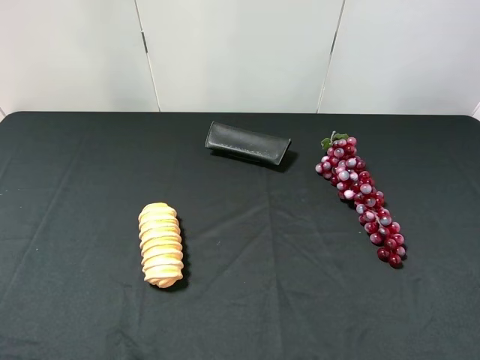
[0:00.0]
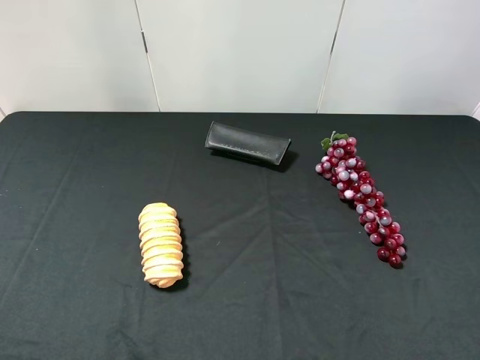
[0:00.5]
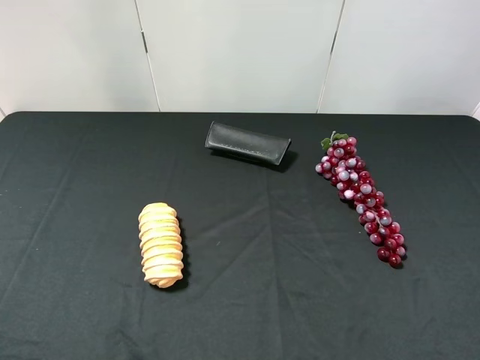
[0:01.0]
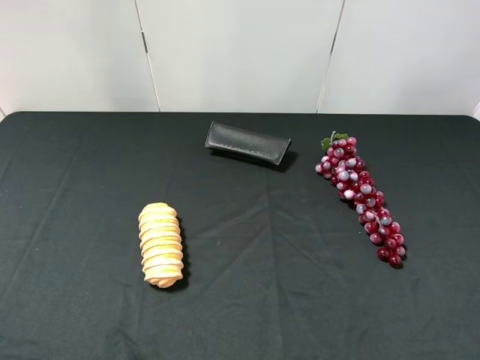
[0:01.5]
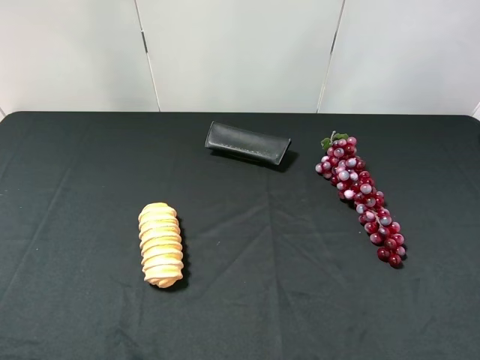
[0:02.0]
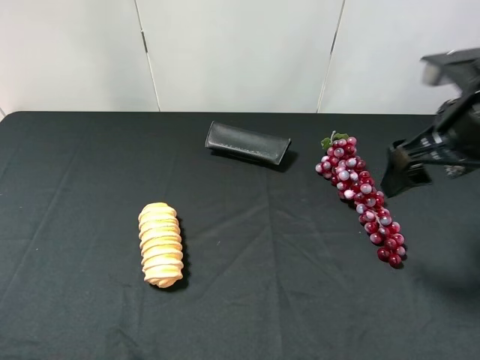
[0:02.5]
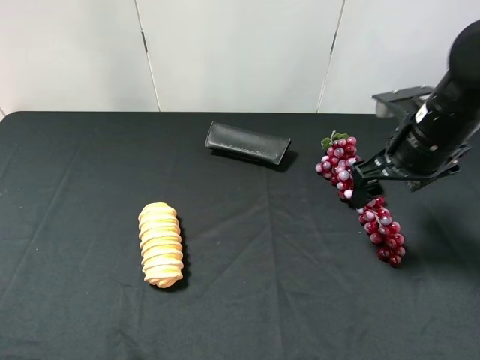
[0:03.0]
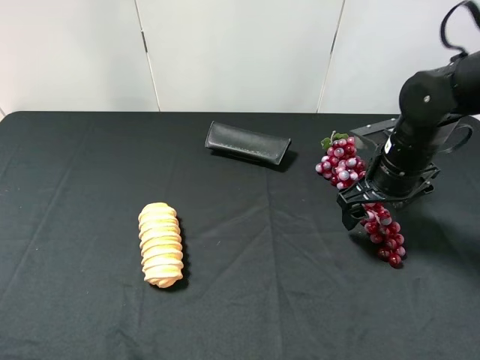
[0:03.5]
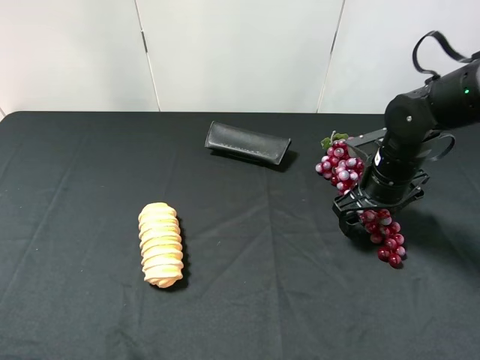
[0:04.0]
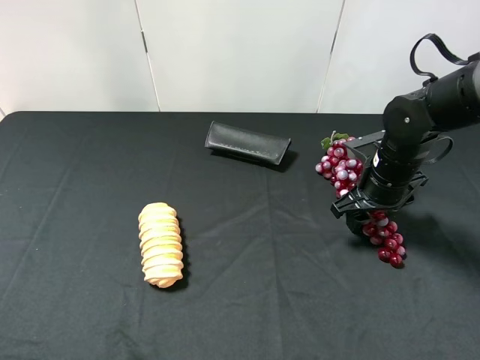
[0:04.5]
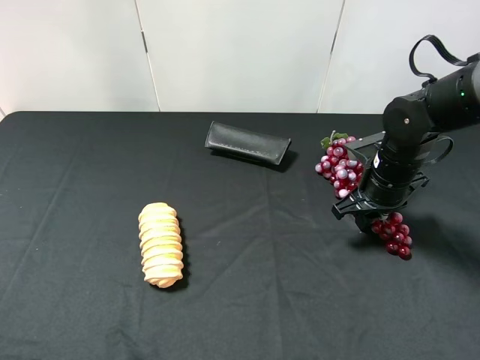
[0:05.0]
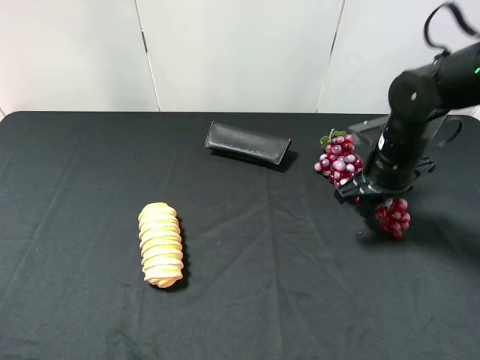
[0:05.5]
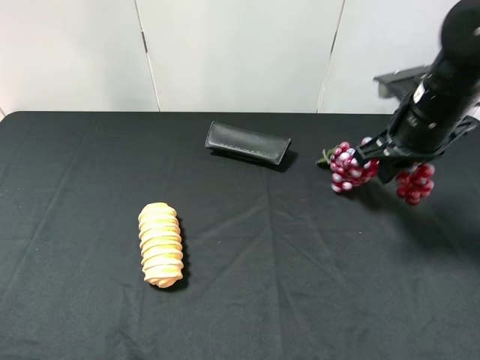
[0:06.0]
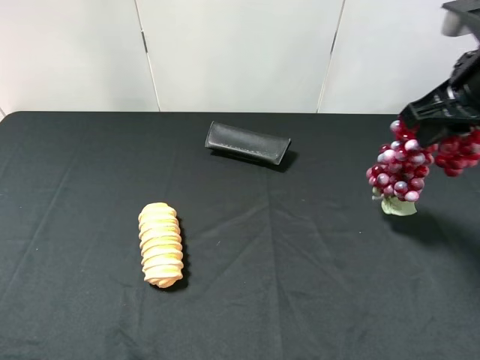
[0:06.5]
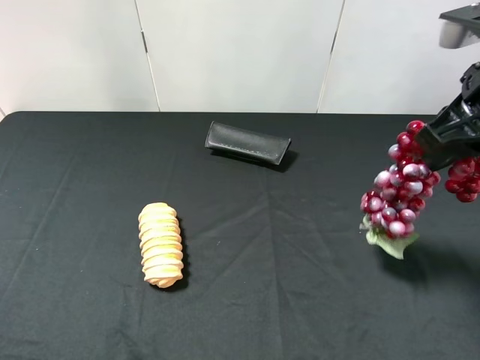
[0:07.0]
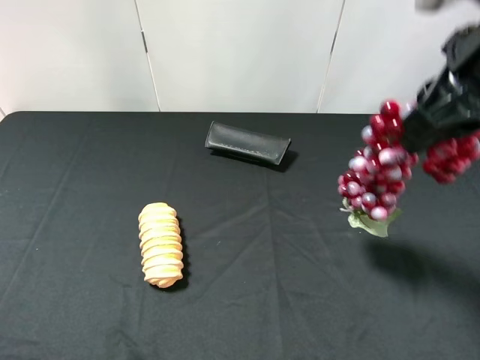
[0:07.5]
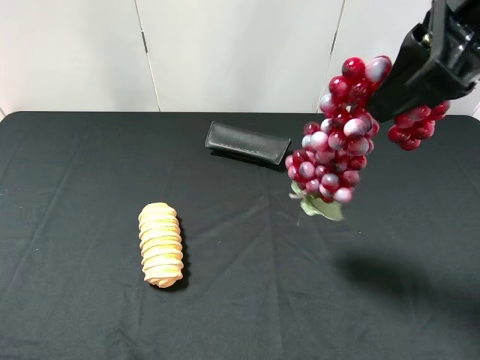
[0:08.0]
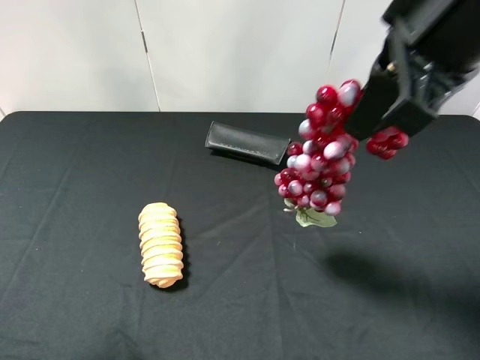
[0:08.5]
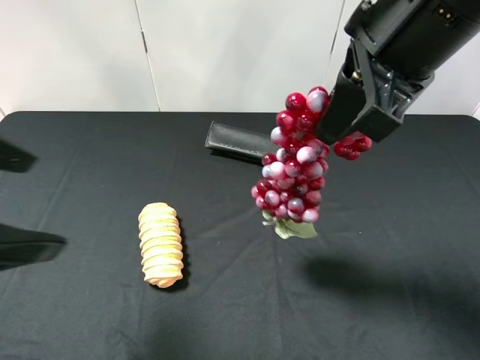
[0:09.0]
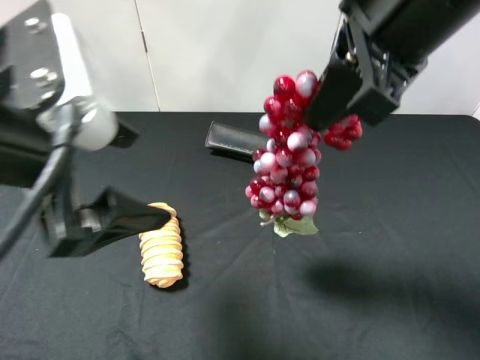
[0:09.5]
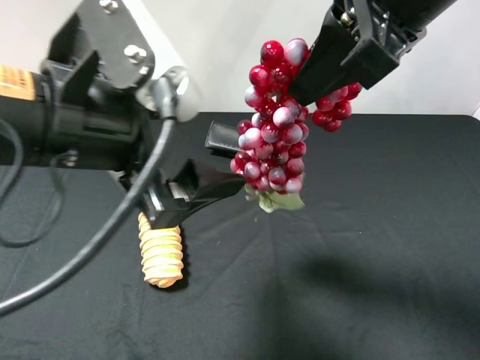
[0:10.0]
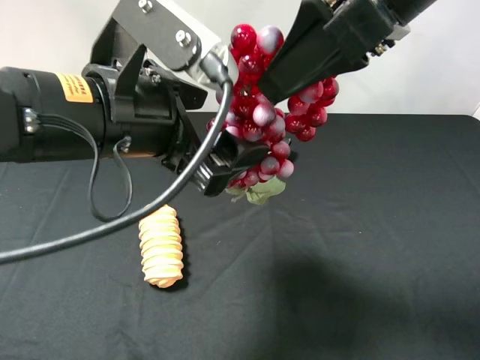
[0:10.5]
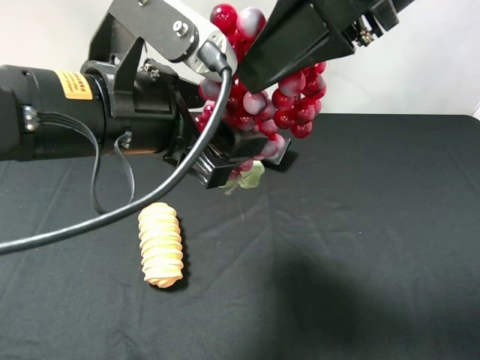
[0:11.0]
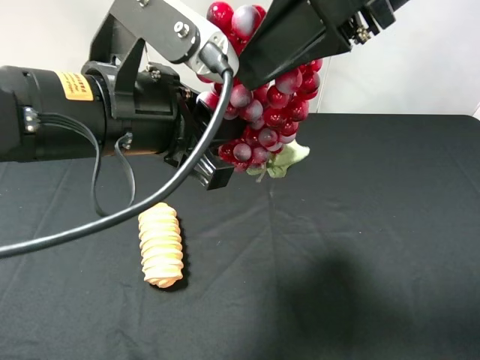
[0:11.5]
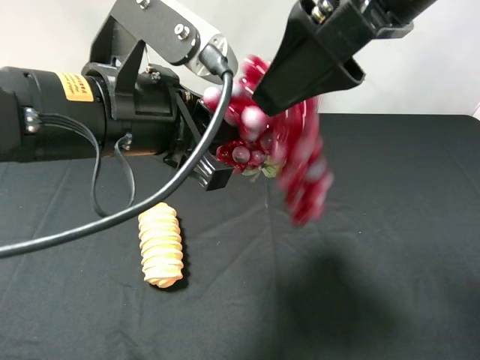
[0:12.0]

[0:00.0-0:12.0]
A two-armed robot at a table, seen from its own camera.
Task of the whole recording: use the right gripper to pick up the item and transfer it from the right gripper to the left gripper.
Step, 0:00.0 to 0:04.5: Use the right gripper to grab the grape on the right side of the table.
0:02.0 to 0:04.0: The right gripper goes about 30 cm downward and forward.
0:04.0 to 0:06.0: The right gripper goes roughly 10 cm upward, and closes.
0:06.0 to 0:08.0: The right gripper goes some 20 cm upward, backward and to the left.
0:08.0 to 0:10.0: The right gripper moves approximately 5 cm, while the left gripper travels to the right and forward by approximately 25 cm.
0:10.0 to 0:12.0: The left gripper closes up, while the right gripper opens.

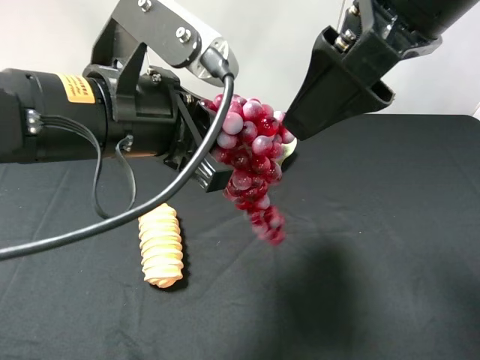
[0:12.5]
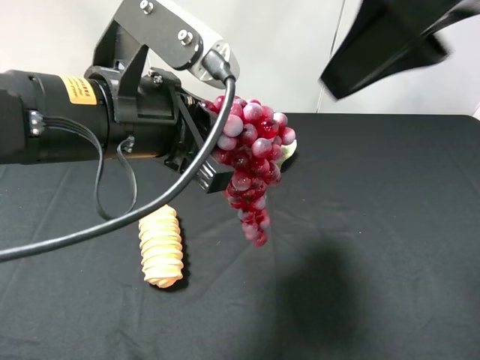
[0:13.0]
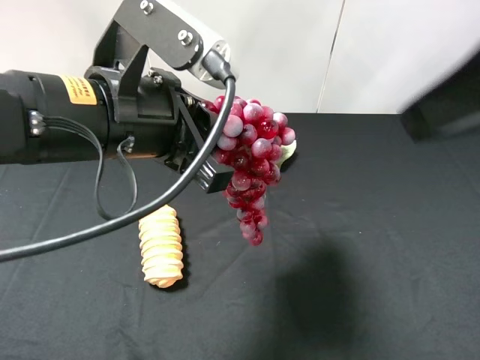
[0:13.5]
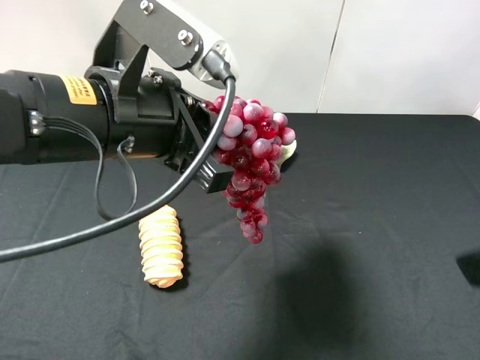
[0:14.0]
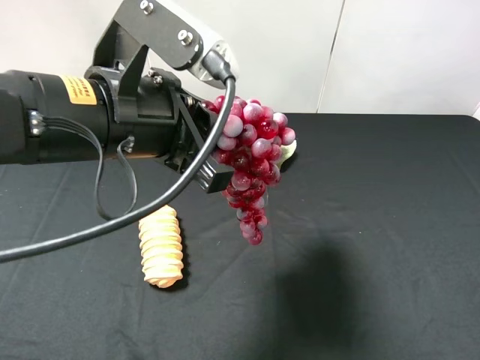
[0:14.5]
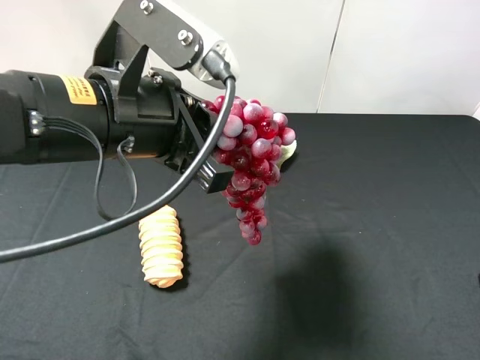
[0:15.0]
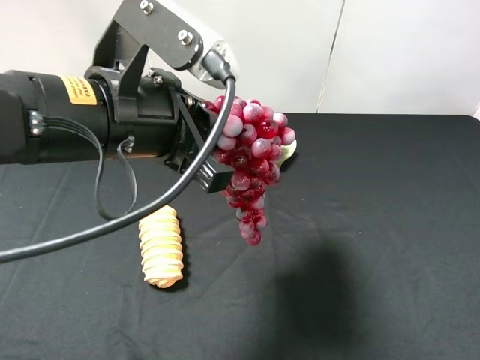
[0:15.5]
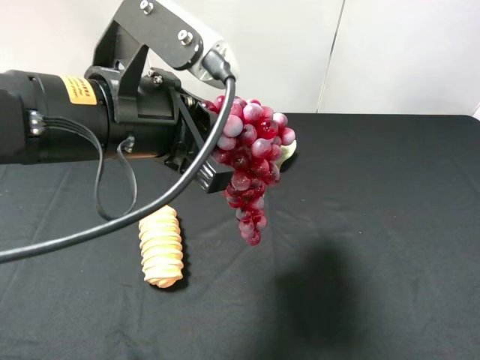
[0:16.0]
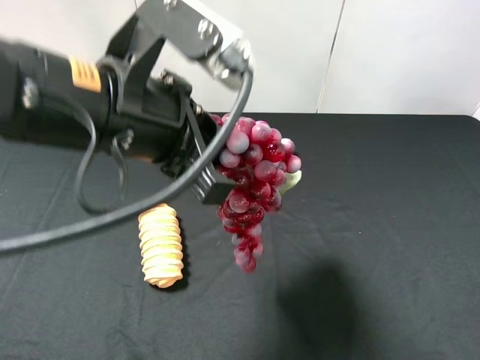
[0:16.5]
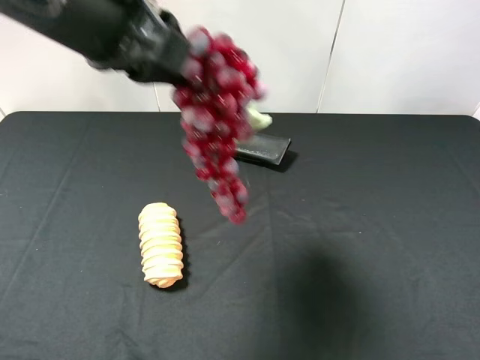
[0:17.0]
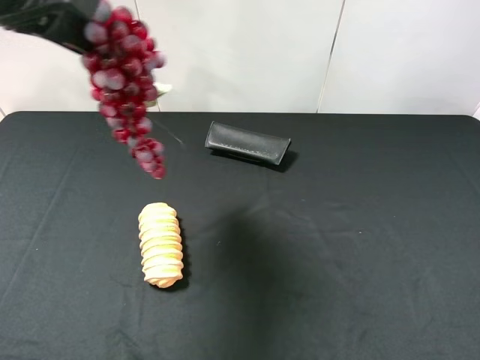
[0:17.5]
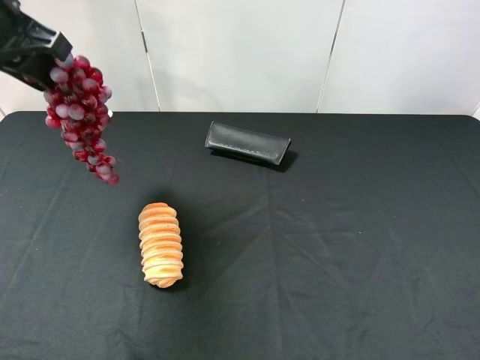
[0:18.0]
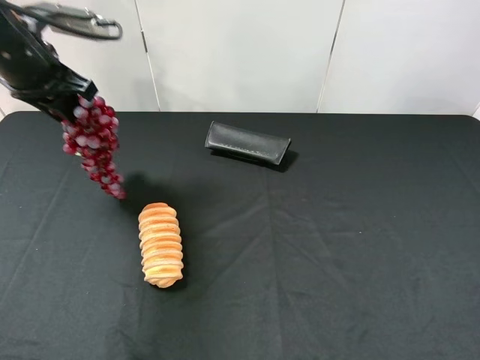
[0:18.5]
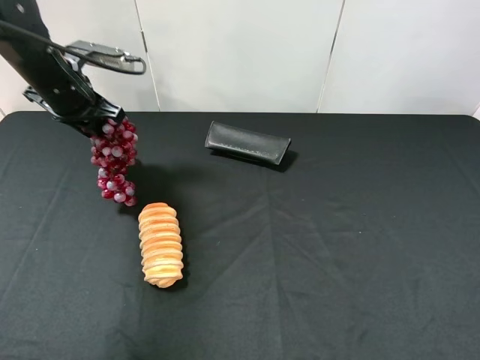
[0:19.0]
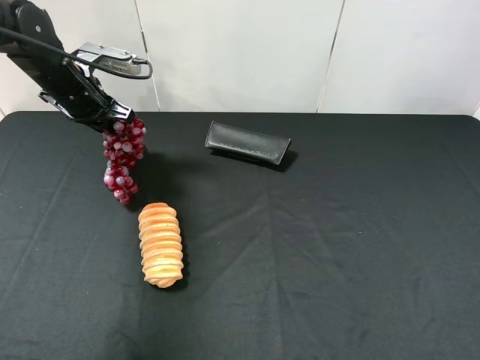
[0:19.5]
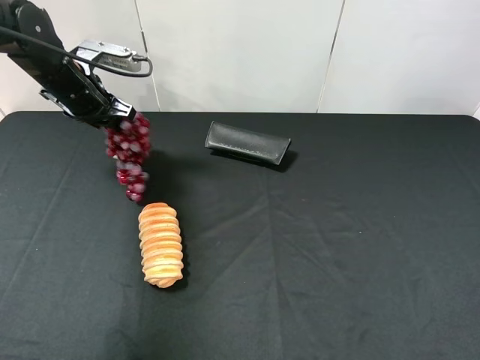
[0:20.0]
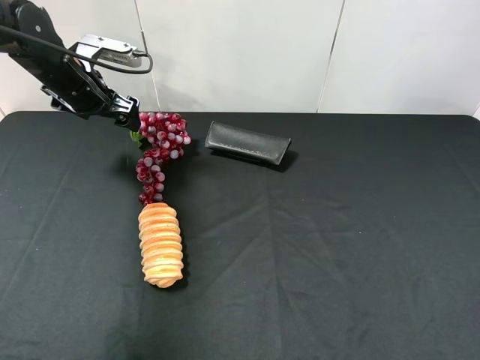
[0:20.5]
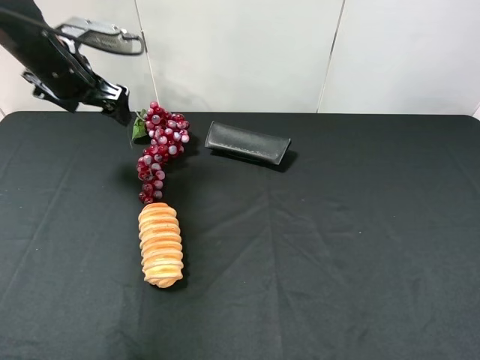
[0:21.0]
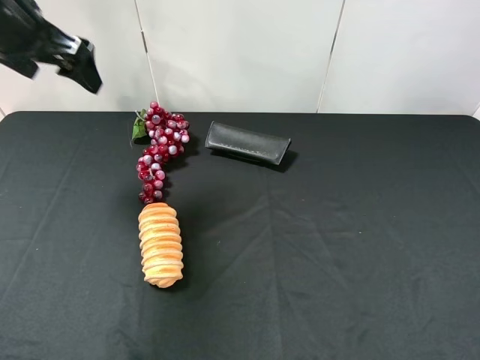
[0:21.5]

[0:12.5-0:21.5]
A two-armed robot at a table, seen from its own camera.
Task of the whole recording: use the right gripper to pick up the item and transfer it from the right gripper to the left gripper.
Step, 0:12.5 to 0:20.0: The left gripper places grape on the left side of the table.
0:12.5 to 0:14.5: The right gripper is displaced to the right, backward and downward by about 25 cm.
0:14.5 to 0:17.0: The left gripper goes about 10 cm upward.
0:17.0 to 0:19.5: The left gripper is displaced forward, downward and to the left by approximately 25 cm.
0:19.5 to 0:21.5: The left gripper moves upward and backward, some 15 cm, and opens up.

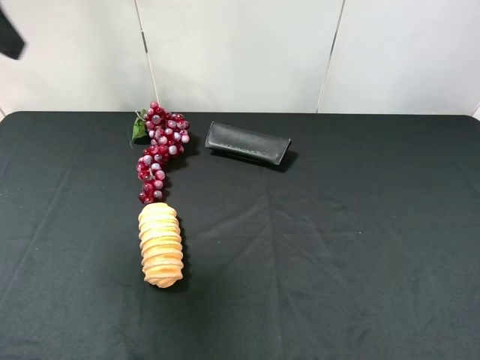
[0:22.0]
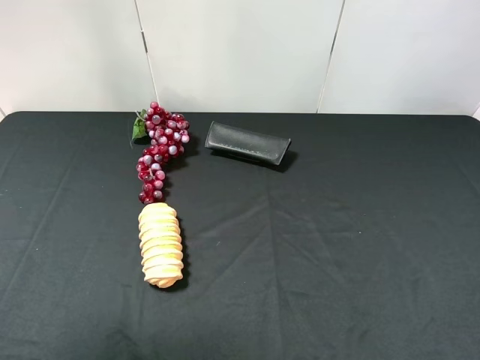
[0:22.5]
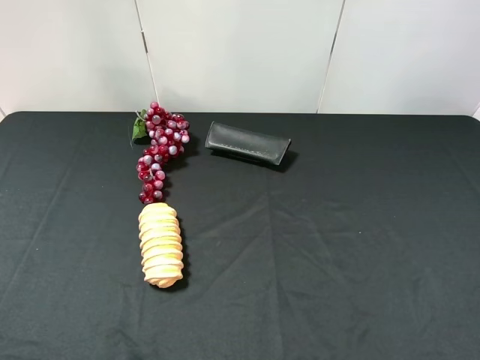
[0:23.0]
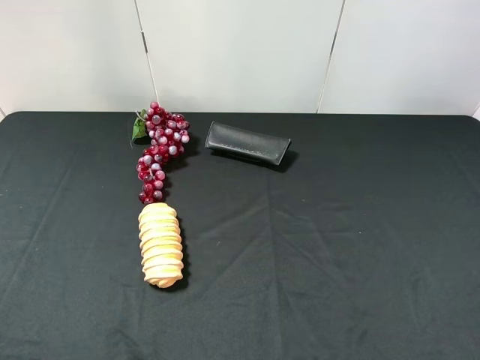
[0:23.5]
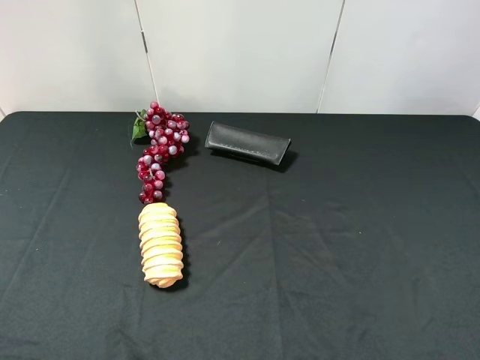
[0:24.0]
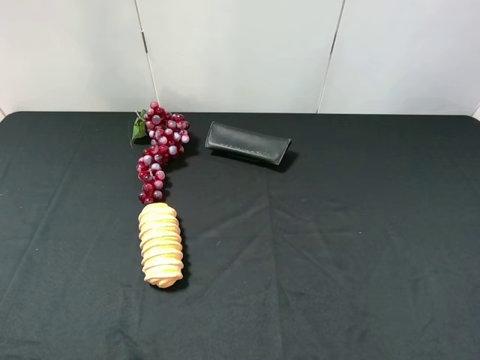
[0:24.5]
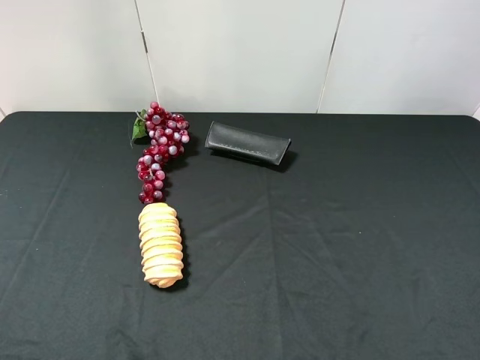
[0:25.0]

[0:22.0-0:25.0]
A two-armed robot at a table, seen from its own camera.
Task of the whole recording: use the right gripper to pick up the item and transfer it from the right gripper to the left gripper.
0:22.0 to 0:23.5: The left gripper moves backward and downward, some 25 cm.

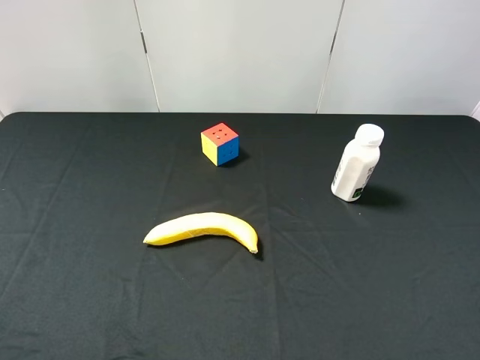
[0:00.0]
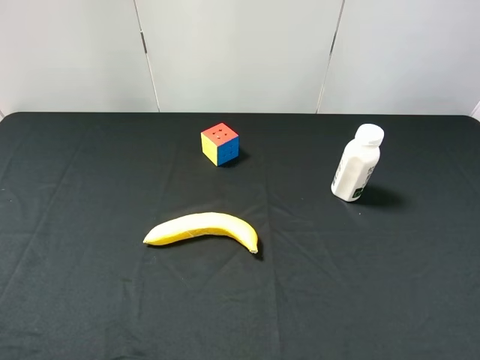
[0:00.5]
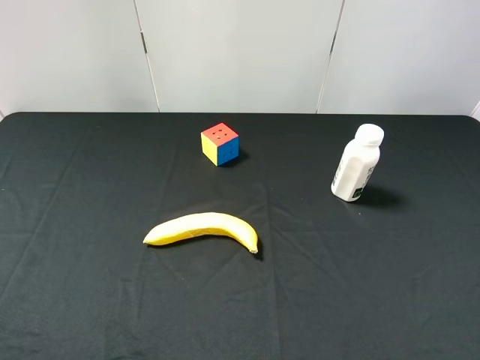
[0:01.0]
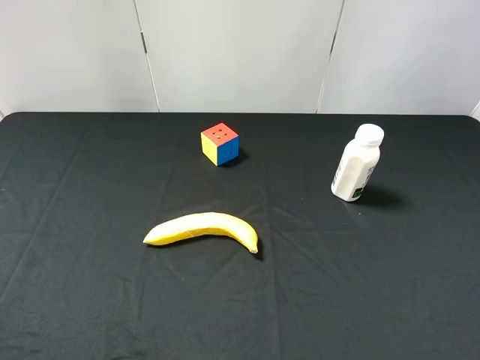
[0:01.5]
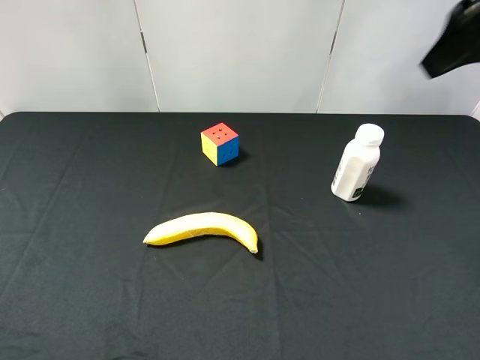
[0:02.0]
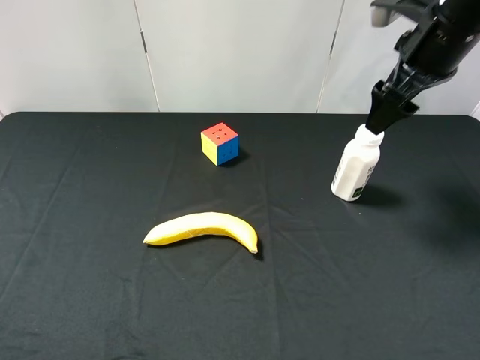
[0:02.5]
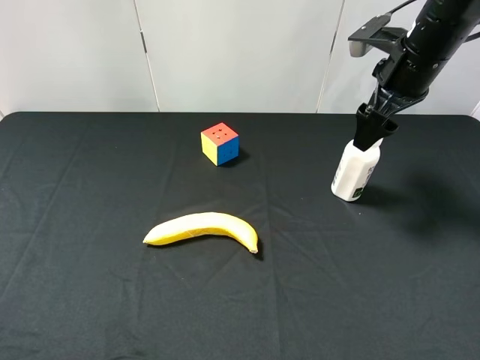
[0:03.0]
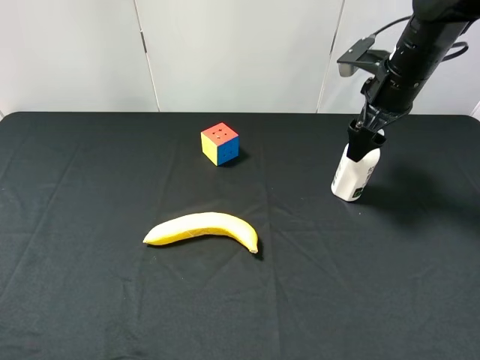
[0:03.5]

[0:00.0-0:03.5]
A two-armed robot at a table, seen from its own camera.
Task of the whole recording: use the right gripper to pick up the item and transfer it from the right gripper to the left gripper.
0:00.0 to 0:02.0: The right gripper shifts some 30 cm forward and upward.
0:02.0 to 0:03.5: The right gripper heads downward and forward, covering about 20 cm.
